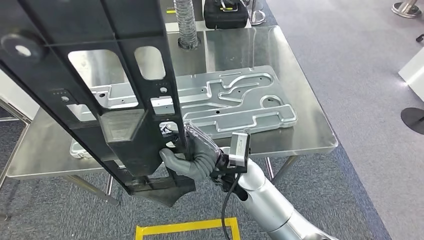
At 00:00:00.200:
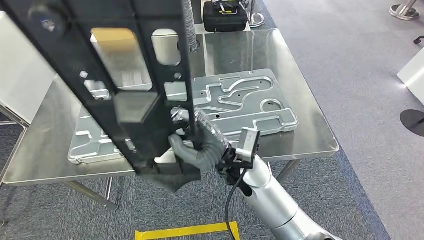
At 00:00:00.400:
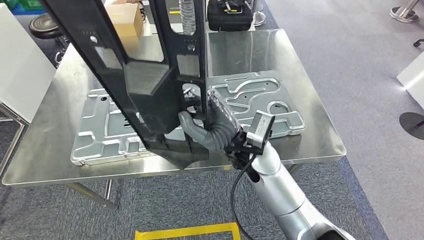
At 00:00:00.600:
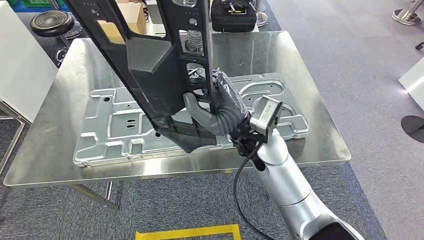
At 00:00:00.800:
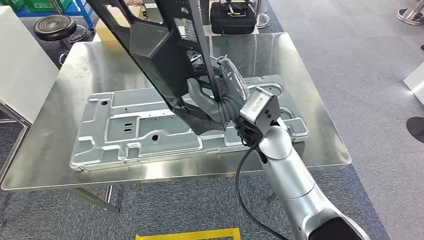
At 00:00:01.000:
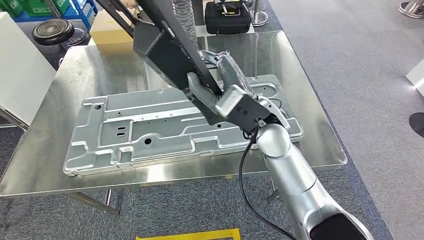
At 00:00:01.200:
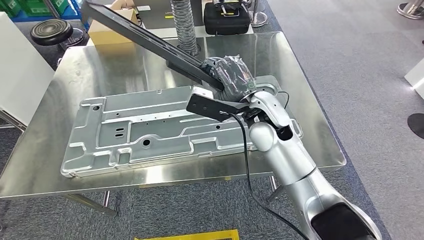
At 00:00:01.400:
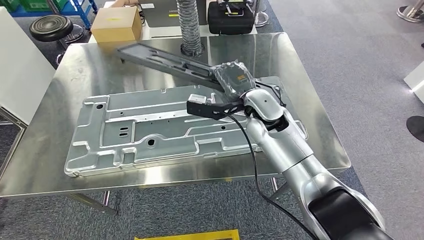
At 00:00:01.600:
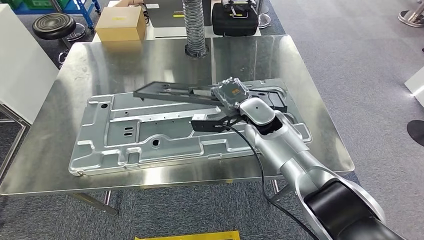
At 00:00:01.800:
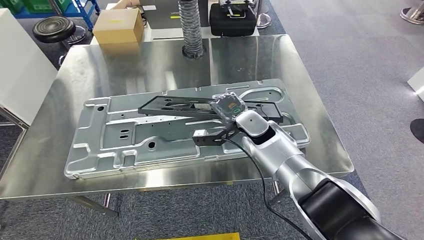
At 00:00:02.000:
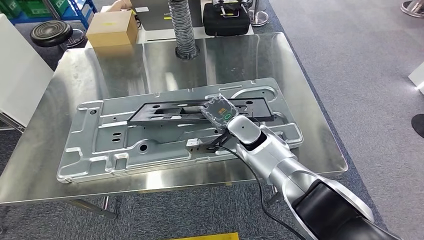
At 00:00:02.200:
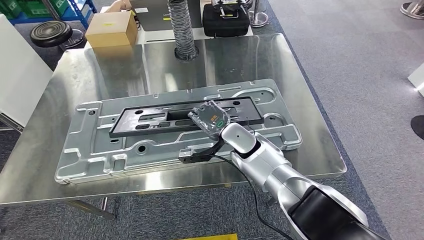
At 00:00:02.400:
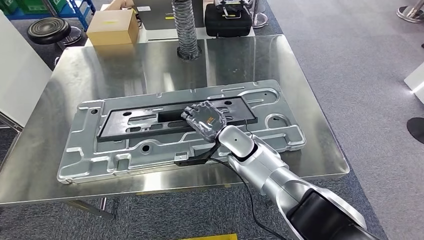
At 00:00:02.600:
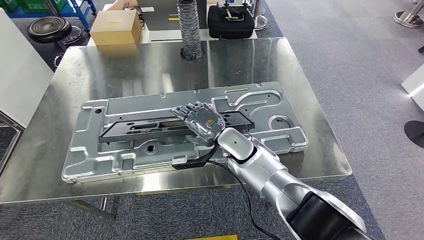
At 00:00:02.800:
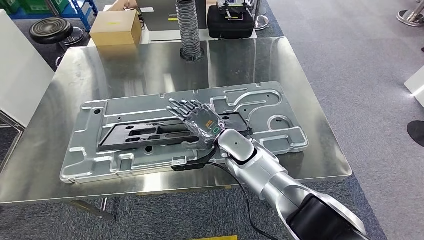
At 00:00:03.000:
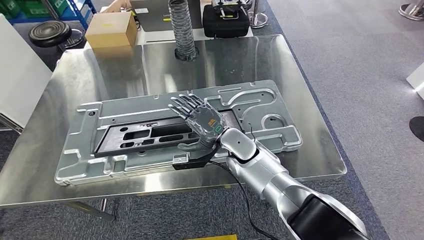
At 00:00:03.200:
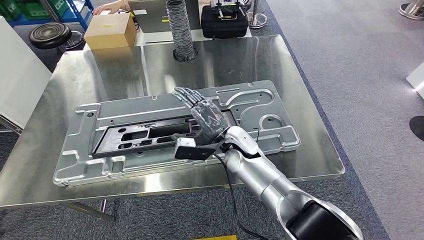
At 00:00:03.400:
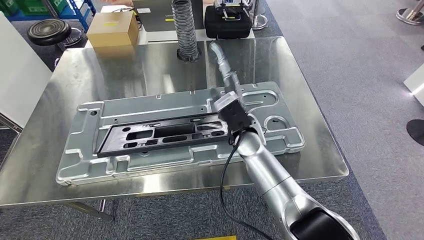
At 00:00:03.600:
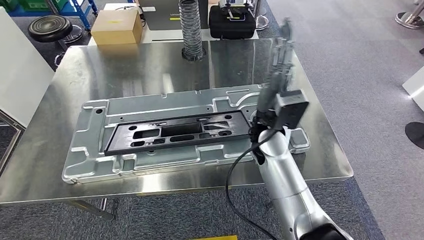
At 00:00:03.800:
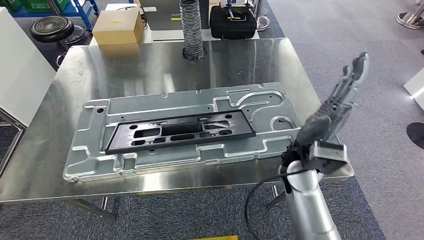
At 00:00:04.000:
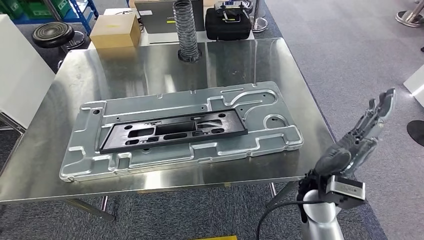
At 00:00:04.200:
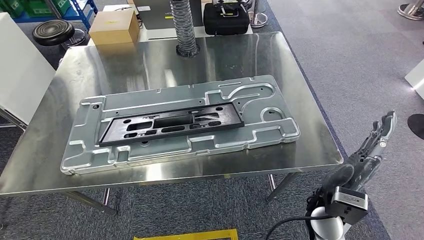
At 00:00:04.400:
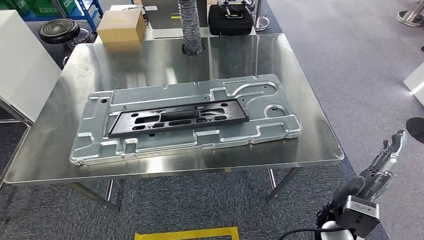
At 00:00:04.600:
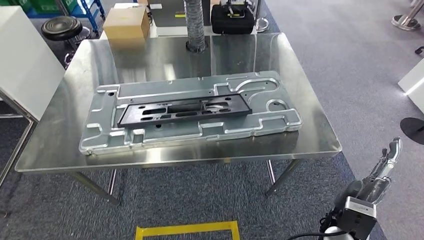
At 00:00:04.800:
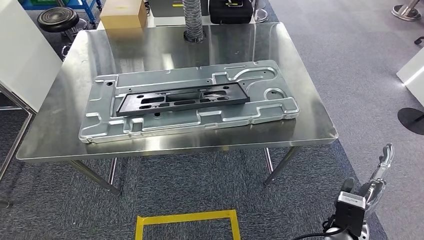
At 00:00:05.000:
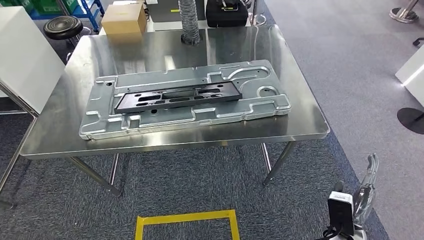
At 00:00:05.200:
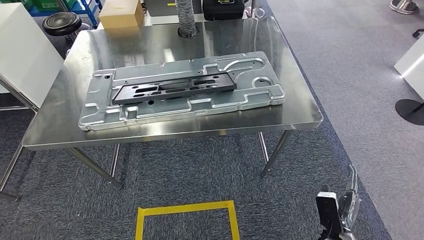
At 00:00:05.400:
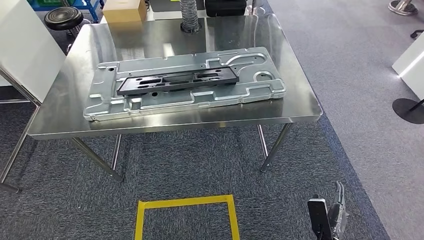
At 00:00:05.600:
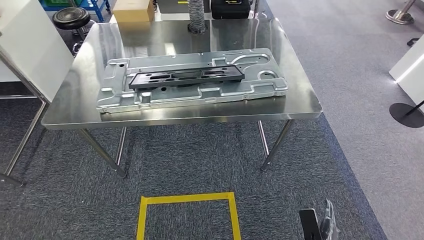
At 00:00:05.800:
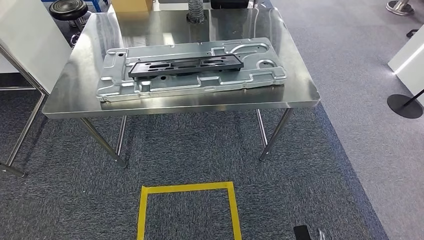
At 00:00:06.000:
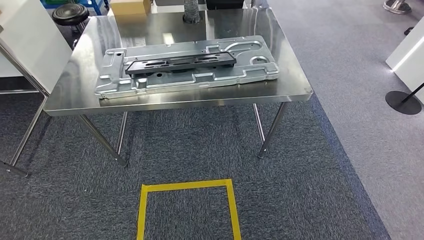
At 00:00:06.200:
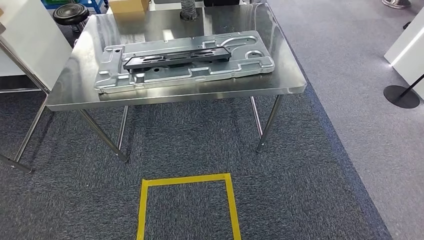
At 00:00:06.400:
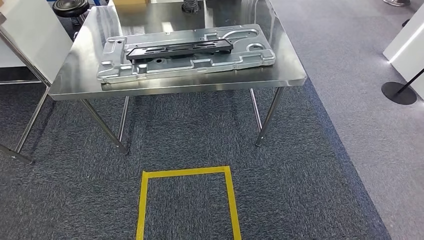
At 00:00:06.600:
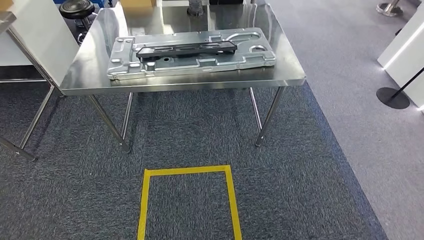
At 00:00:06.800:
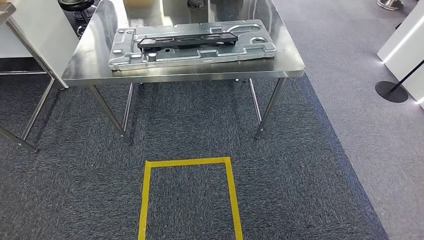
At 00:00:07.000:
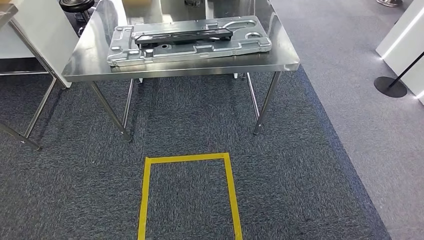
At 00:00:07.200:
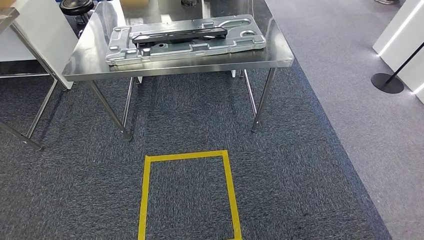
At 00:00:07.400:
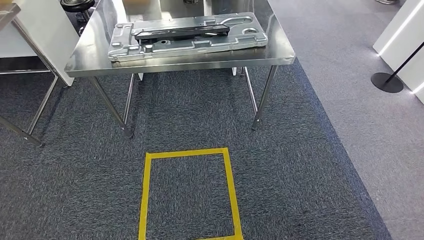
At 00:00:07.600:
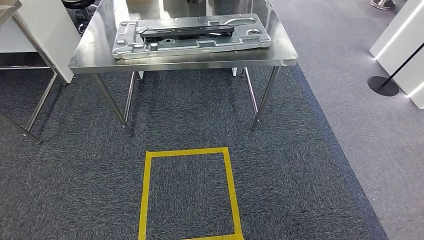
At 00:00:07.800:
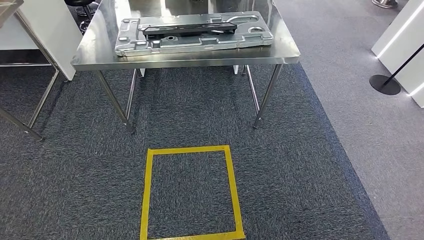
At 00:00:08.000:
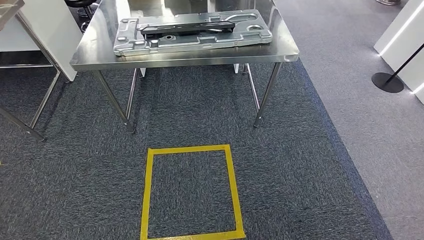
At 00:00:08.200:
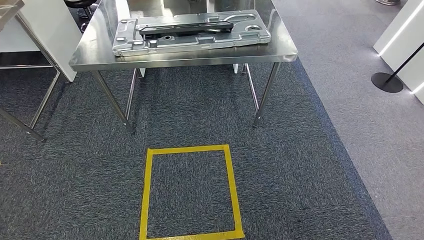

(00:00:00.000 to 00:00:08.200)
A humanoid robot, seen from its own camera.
Step, 00:00:00.000 - 00:00:04.400: Insert the small component into the corresponding slot on the workbench.
Step, 00:00:04.800 - 00:00:08.200: Return to the initial position at the workbench.
